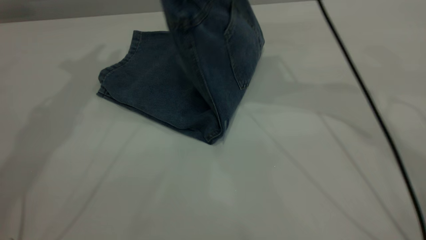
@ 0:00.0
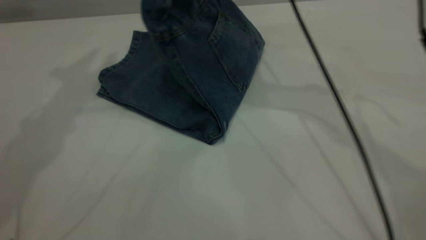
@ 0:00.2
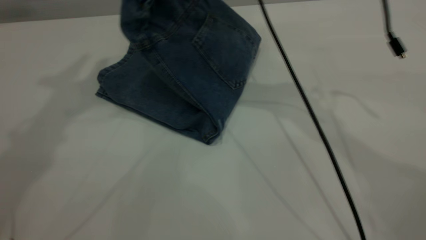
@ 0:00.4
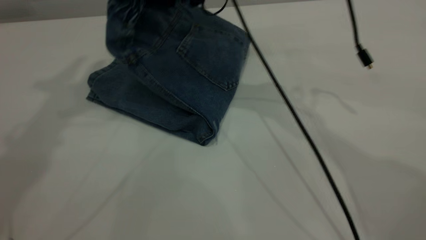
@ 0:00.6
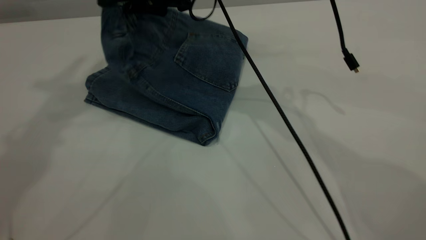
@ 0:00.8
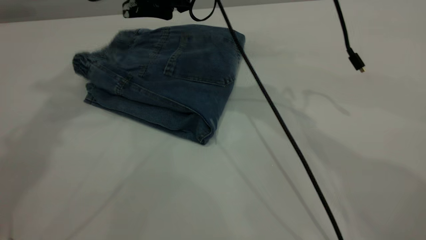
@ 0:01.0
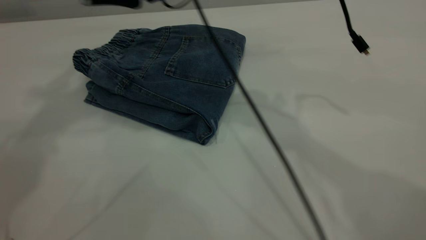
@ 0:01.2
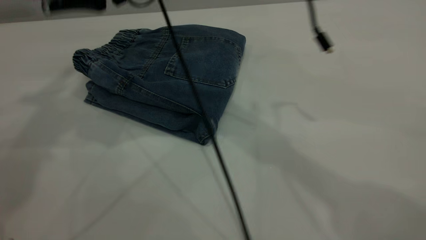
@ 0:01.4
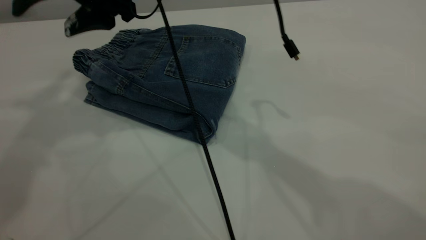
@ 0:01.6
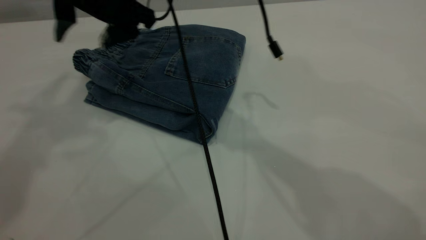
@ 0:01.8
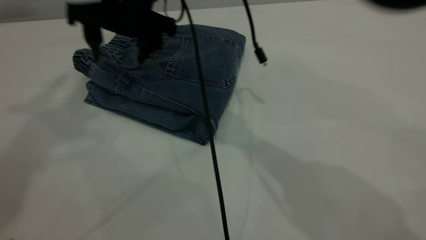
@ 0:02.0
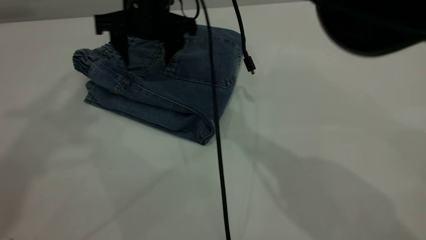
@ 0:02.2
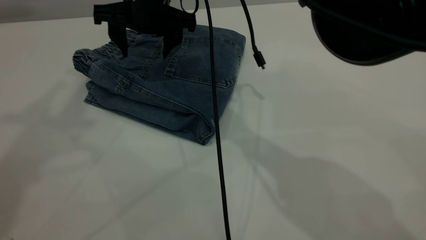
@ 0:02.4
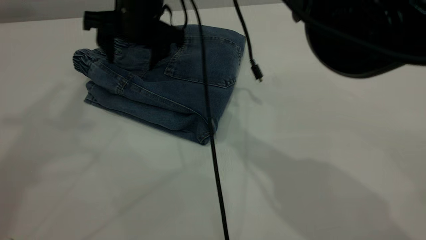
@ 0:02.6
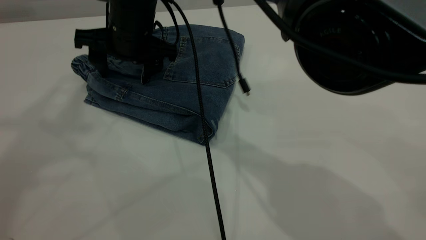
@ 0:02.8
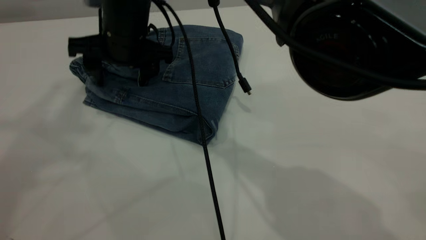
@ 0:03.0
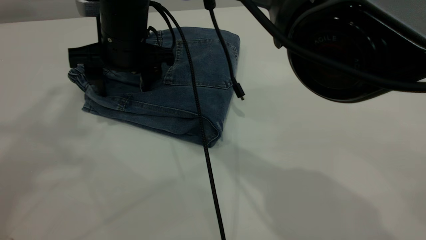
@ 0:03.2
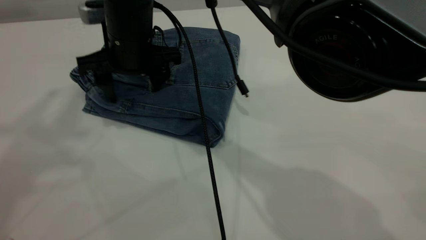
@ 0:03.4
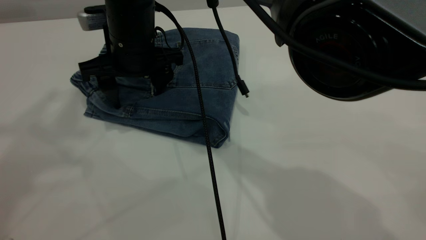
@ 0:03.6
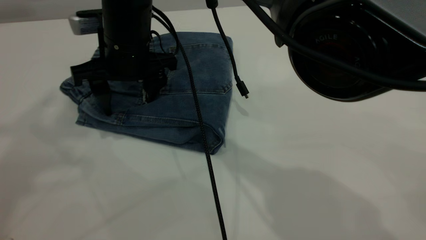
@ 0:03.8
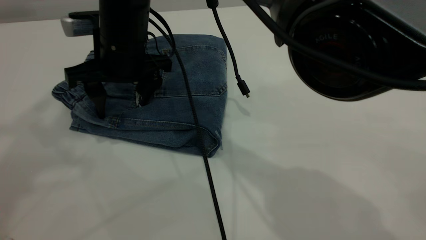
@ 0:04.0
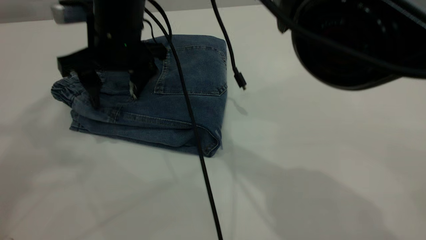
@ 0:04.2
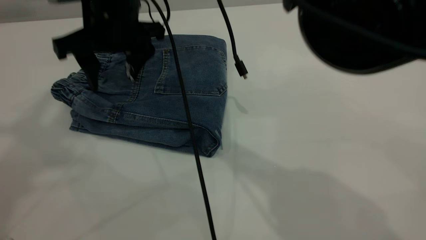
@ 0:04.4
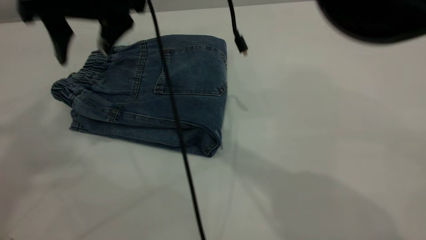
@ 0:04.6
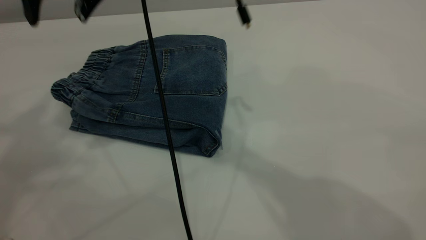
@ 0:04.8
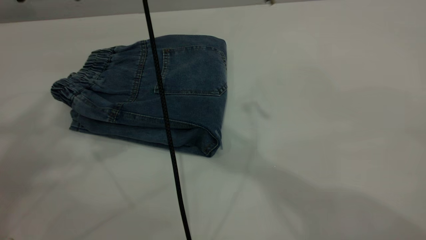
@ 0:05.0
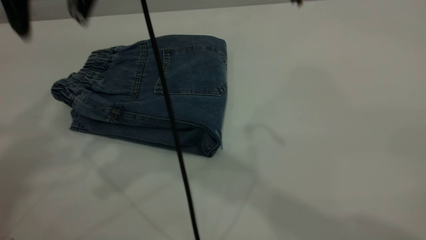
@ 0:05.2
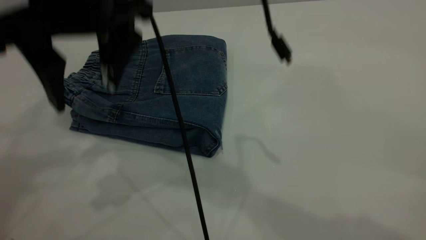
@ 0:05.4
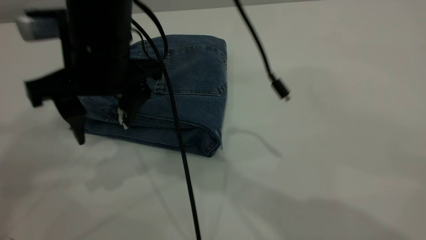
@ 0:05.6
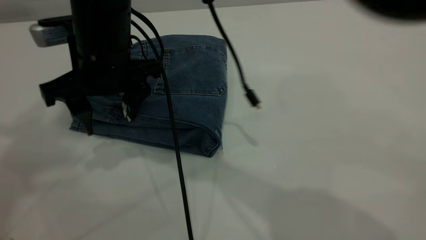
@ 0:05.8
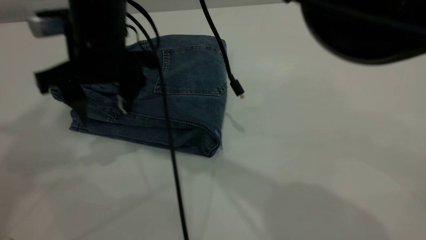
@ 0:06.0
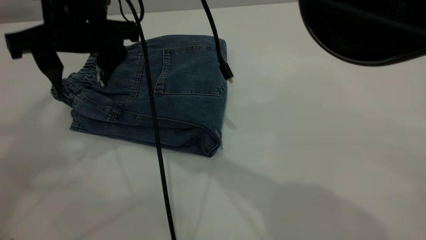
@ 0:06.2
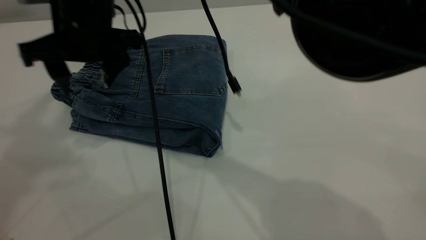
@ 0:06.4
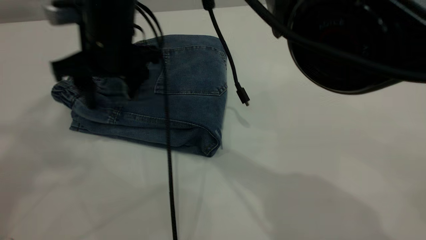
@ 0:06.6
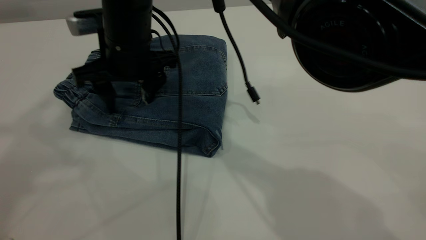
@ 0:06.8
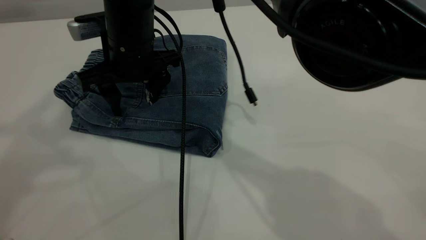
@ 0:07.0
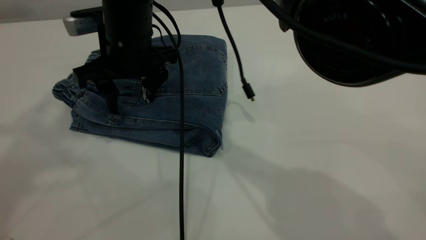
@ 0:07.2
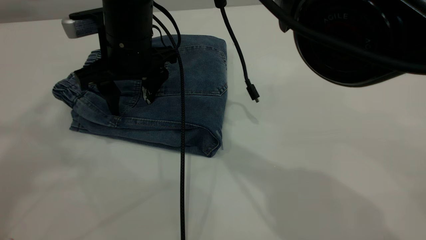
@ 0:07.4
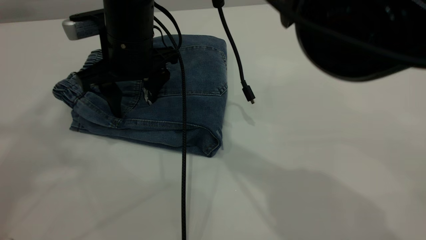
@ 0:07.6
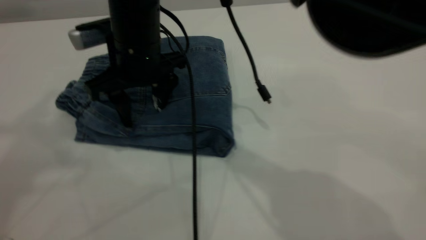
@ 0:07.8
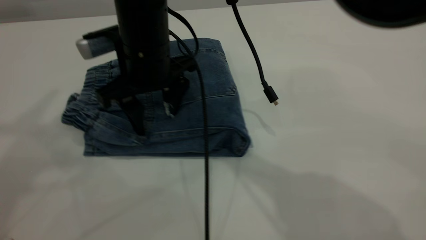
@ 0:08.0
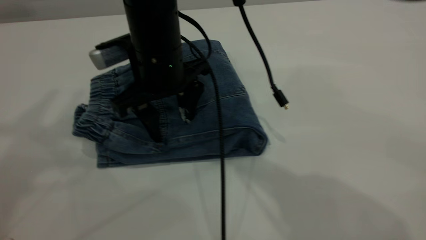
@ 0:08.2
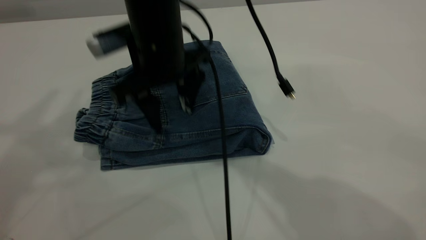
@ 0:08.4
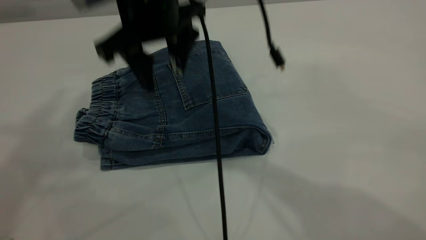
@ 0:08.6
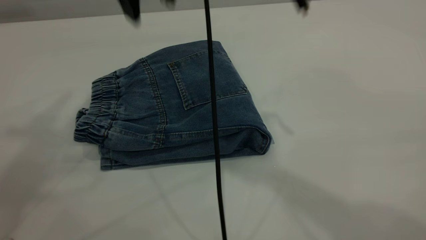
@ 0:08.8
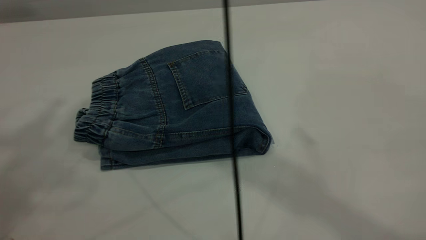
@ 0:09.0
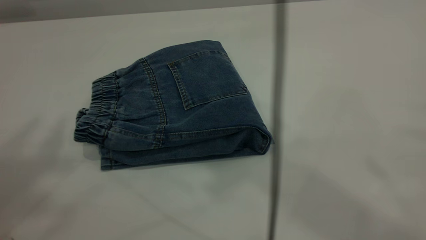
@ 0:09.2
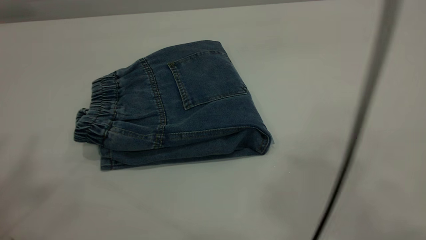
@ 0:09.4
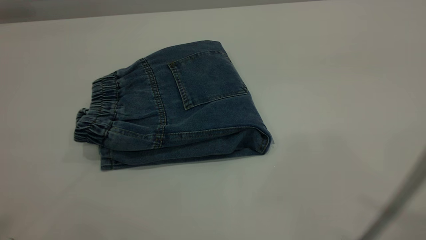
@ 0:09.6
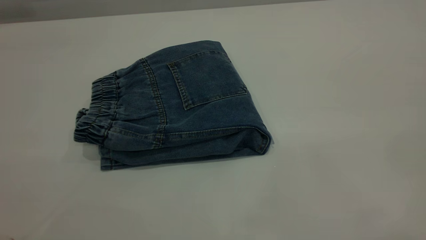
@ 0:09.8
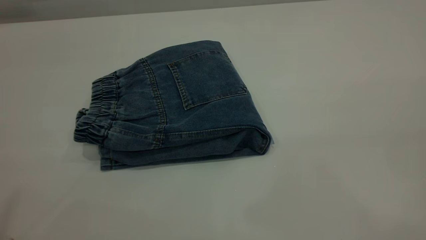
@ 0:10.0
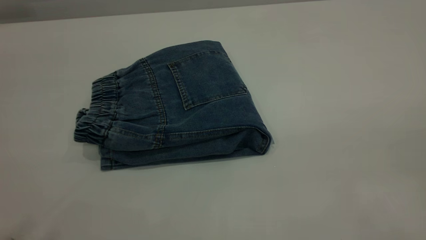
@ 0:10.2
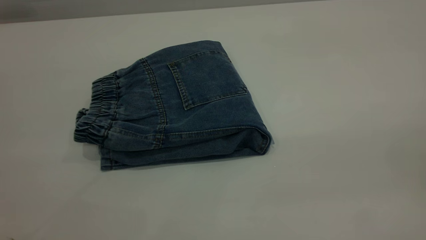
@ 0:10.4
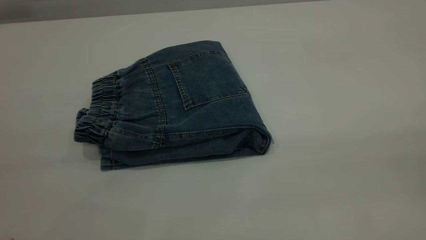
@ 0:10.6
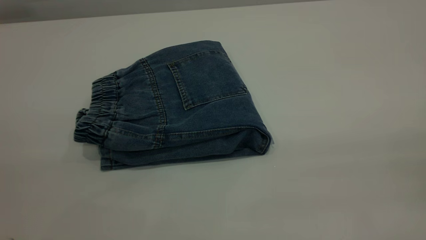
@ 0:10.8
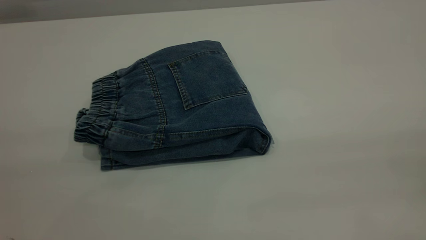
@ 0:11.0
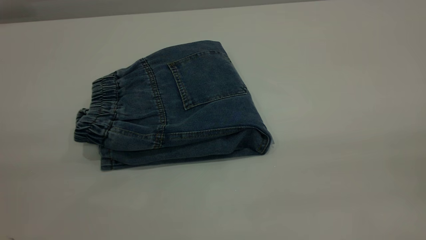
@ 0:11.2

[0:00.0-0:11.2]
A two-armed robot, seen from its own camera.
0:00.0 to 0:01.6: The left gripper is displaced upward and backward by some 15 cm, while the right gripper travels to the left by approximately 20 cm, and opens.
0:01.6 to 0:03.2: The right gripper moves downward, some 10 cm; the left gripper ends up some 5 cm from where it was.
0:03.2 to 0:04.8: The right gripper is displaced upward by approximately 15 cm.
0:04.8 to 0:06.4: The right gripper heads downward, covering approximately 10 cm.
0:06.4 to 0:08.0: The right gripper is displaced to the right by approximately 5 cm.
0:08.0 to 0:09.6: The left gripper is displaced backward by about 15 cm. The right gripper moves upward, to the right and backward, approximately 50 cm.
0:09.6 to 0:11.2: The right gripper heads downward, to the right and backward, covering about 20 cm.

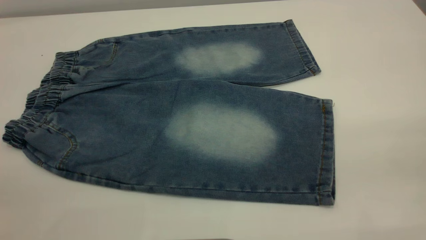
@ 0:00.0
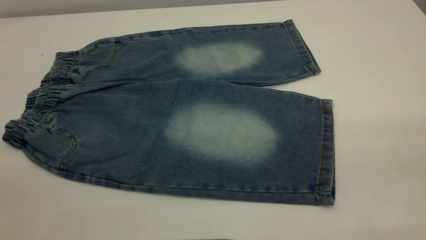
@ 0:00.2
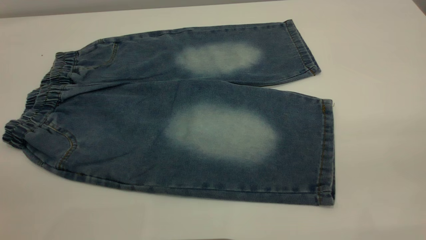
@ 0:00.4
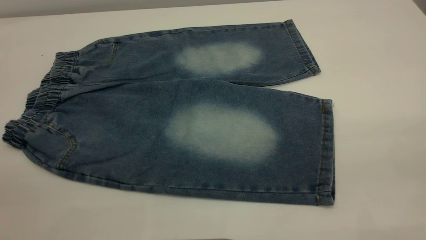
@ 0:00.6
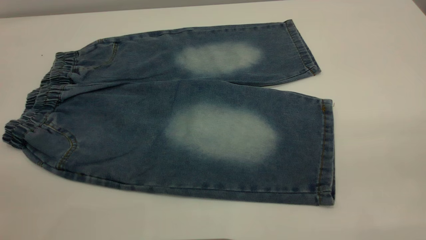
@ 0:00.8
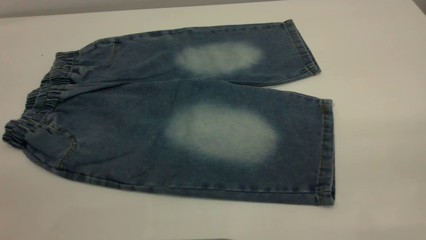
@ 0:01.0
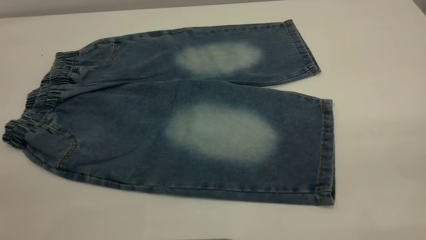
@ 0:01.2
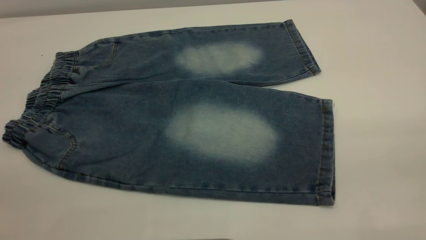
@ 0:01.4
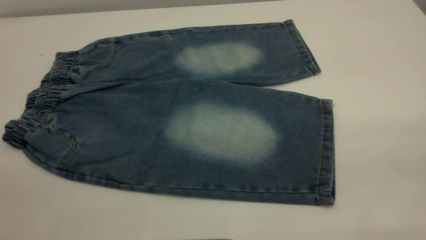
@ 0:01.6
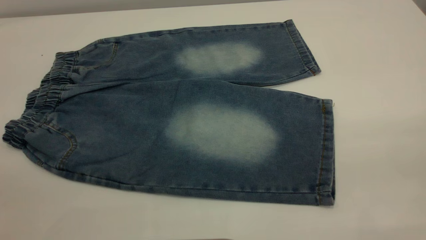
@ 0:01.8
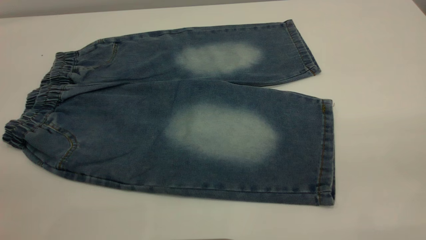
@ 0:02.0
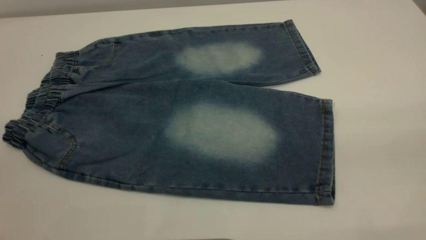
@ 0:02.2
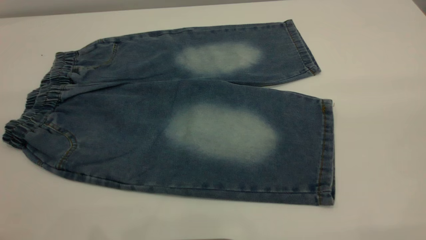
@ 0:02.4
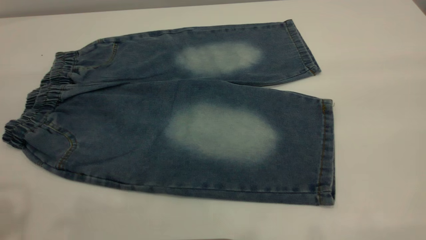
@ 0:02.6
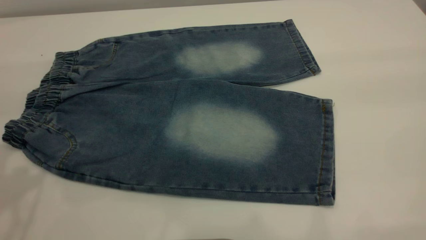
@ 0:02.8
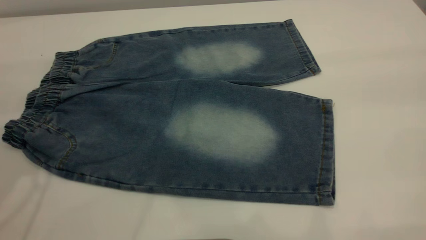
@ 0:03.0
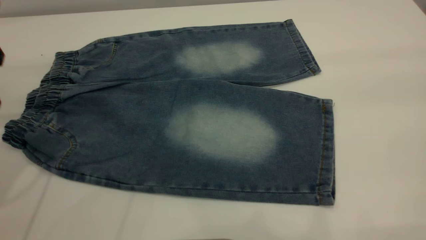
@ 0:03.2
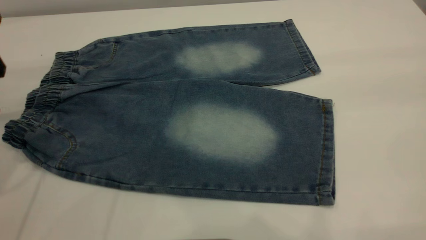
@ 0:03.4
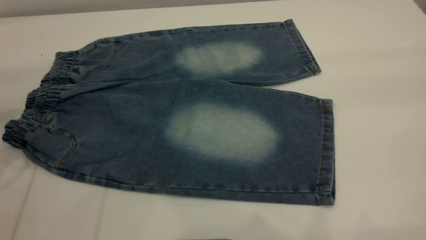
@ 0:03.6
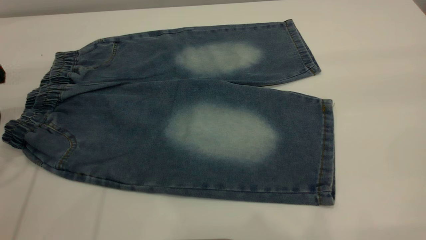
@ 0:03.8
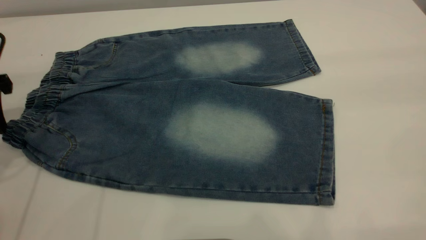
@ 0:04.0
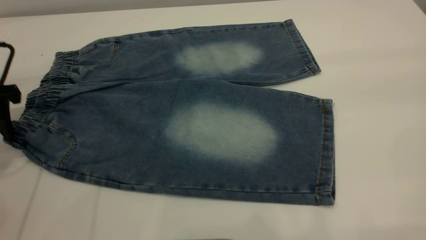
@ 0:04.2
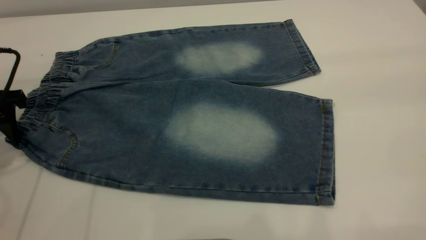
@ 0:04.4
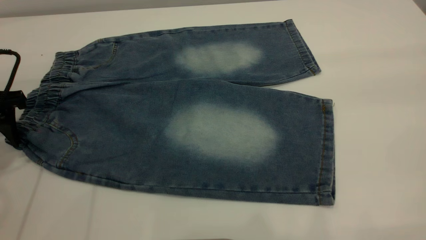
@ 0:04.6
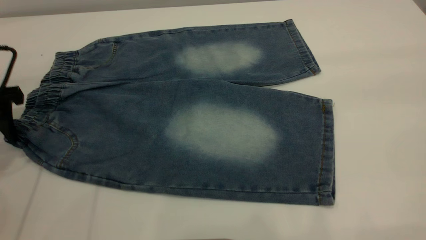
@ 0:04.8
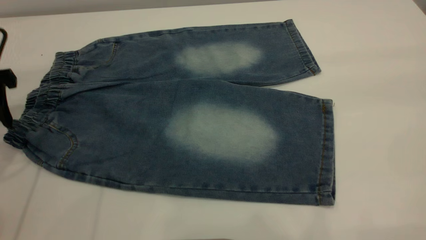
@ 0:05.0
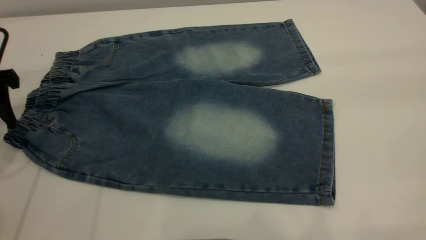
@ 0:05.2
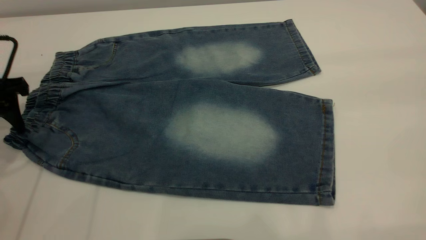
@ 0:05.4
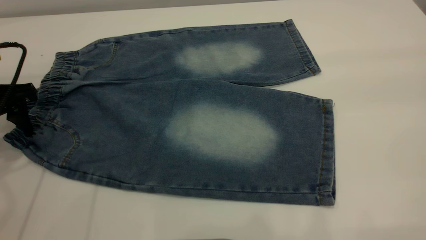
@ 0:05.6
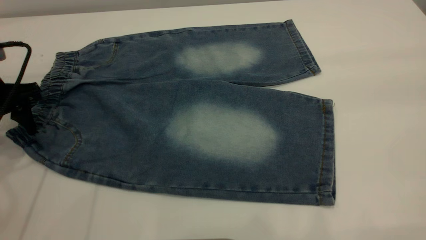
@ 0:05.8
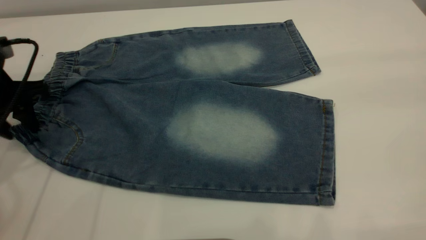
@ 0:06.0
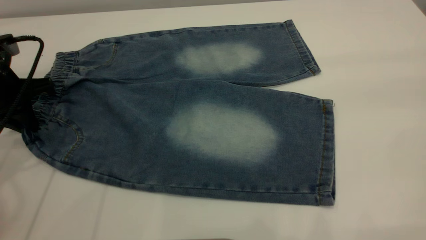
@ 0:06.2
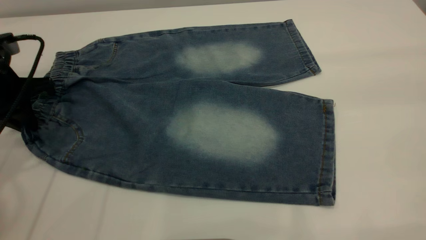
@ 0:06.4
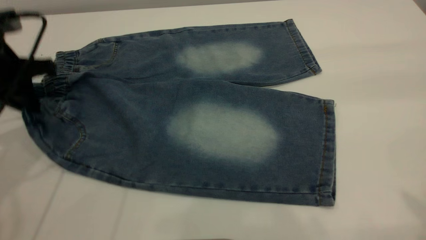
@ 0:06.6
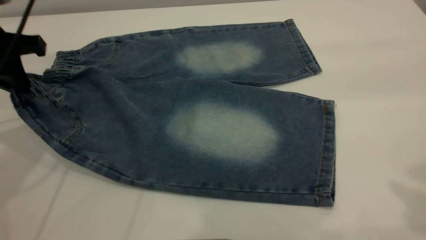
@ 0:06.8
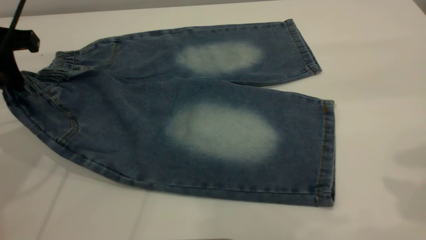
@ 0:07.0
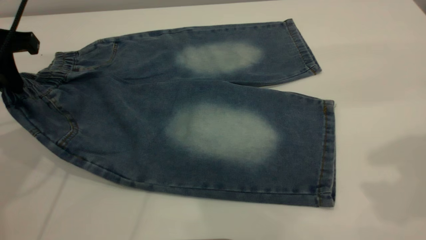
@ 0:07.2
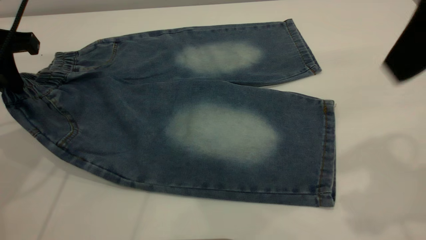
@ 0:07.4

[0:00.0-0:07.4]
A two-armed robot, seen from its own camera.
0:00.0 to 0:01.4: Both grippers stay put.
0:03.0 to 0:04.4: The left gripper goes some 10 cm downward.
0:04.4 to 0:06.0: The left gripper closes up.
0:06.0 to 0:07.4: The right gripper goes some 15 cm forward, downward and to the left. The left gripper heads upward, covering roughly 10 cm, and closes its fingers.
